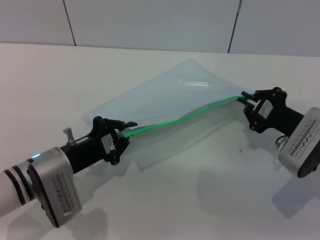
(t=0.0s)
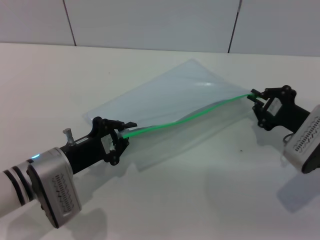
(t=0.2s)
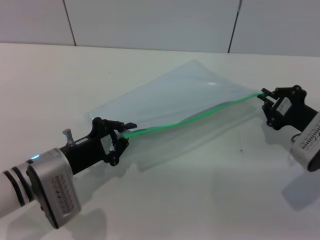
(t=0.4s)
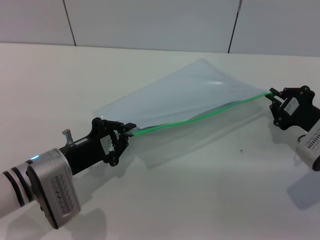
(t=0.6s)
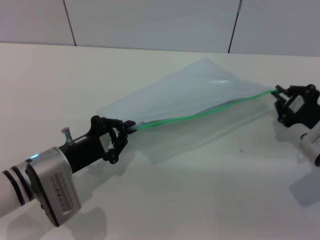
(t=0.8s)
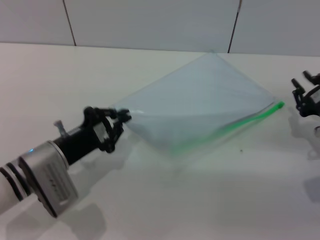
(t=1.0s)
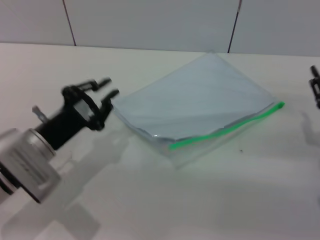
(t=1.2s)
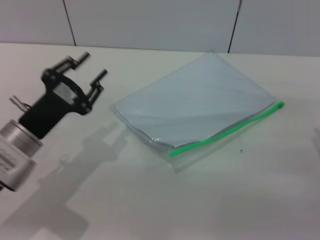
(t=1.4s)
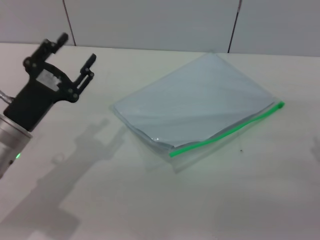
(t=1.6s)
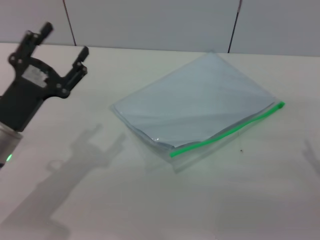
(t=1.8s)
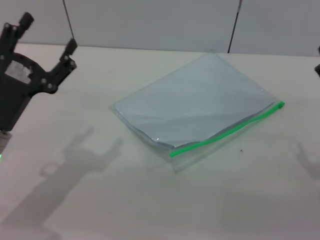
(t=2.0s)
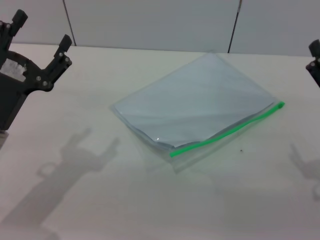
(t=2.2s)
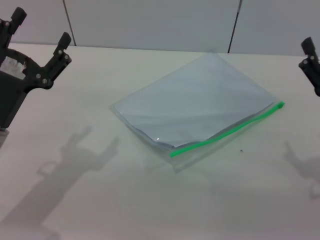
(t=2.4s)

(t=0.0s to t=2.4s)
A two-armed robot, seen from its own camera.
Step, t=1.0s - t=1.4s: Place the transparent plastic bag.
t=0.0s - t=1.2s: The right gripper goes roughly 5 cm to the right.
t=1.2s - t=2.4s: The left gripper moves about 5 cm, and opens its fingers, while the right gripper changes place by roughly 5 cm, and opens its fingers.
